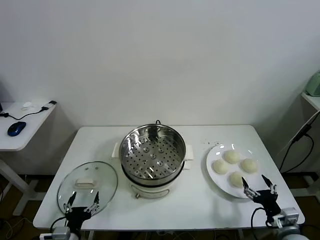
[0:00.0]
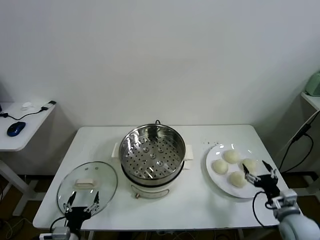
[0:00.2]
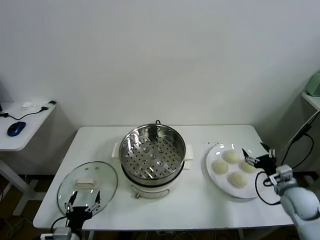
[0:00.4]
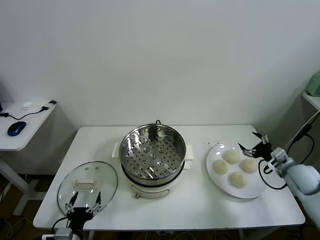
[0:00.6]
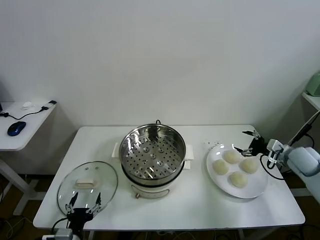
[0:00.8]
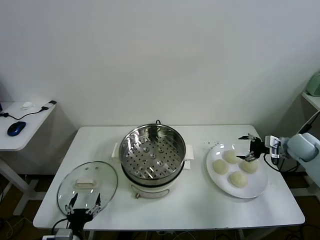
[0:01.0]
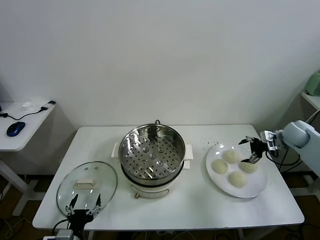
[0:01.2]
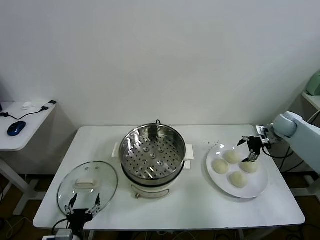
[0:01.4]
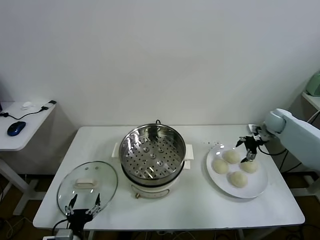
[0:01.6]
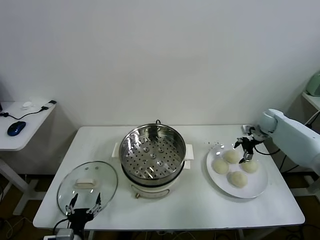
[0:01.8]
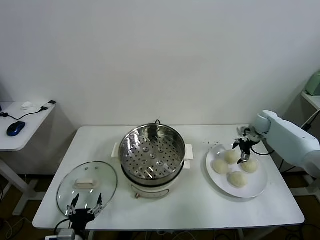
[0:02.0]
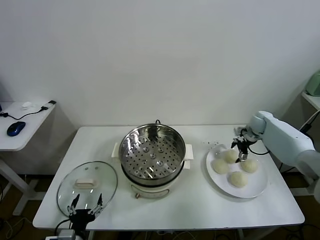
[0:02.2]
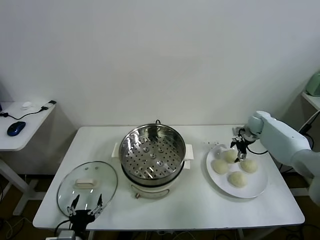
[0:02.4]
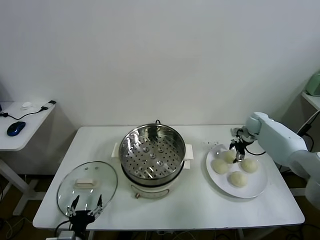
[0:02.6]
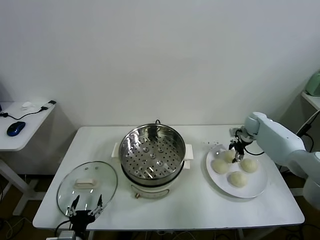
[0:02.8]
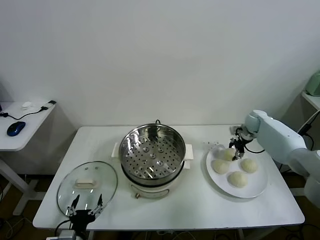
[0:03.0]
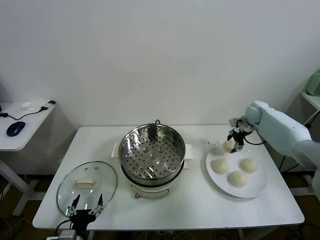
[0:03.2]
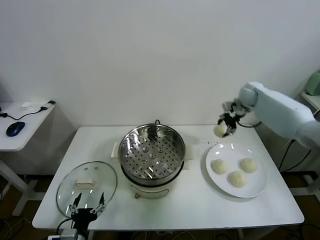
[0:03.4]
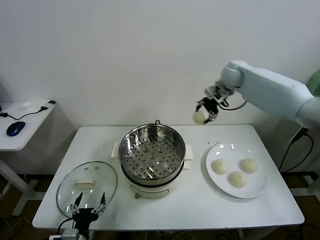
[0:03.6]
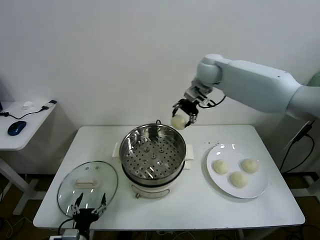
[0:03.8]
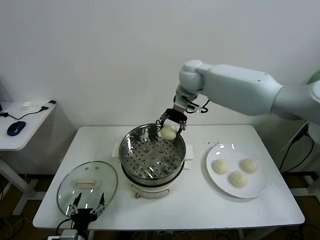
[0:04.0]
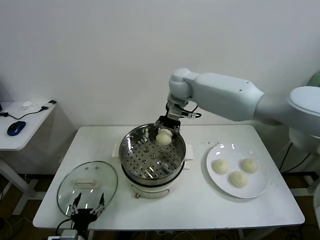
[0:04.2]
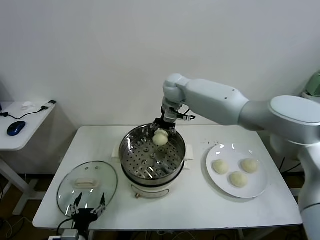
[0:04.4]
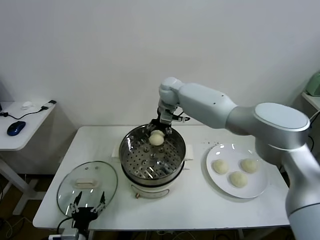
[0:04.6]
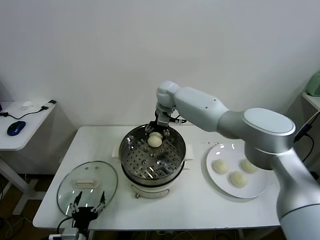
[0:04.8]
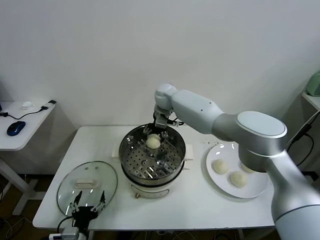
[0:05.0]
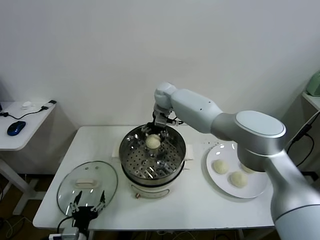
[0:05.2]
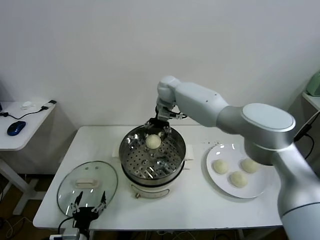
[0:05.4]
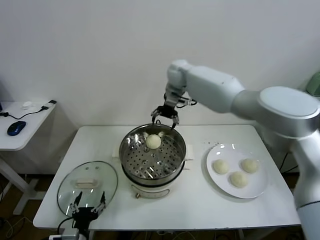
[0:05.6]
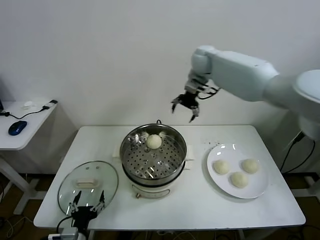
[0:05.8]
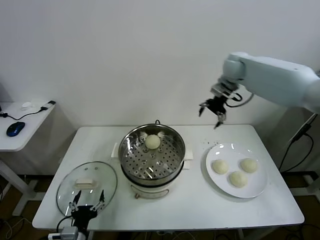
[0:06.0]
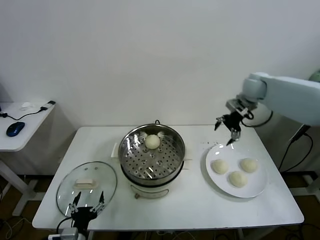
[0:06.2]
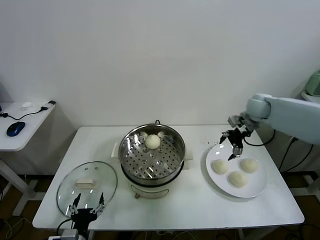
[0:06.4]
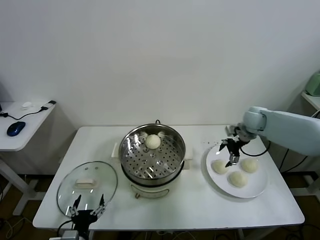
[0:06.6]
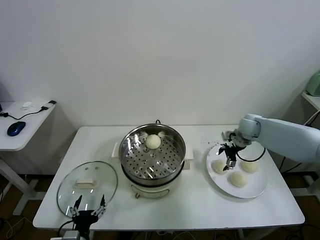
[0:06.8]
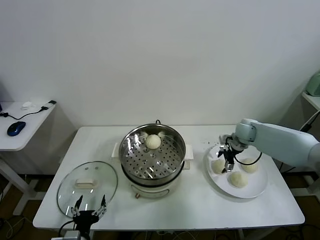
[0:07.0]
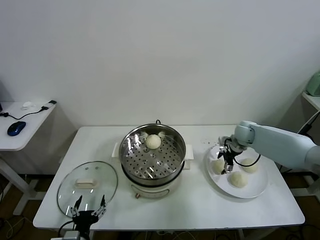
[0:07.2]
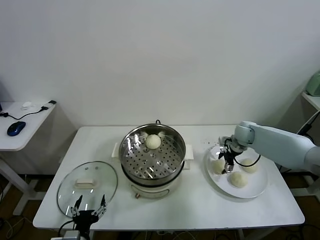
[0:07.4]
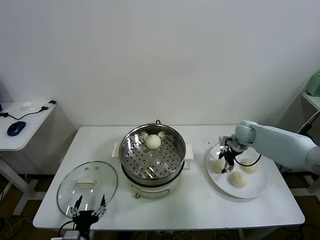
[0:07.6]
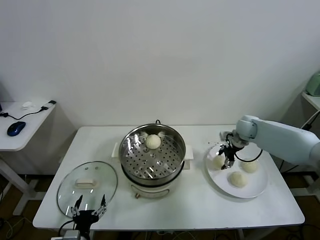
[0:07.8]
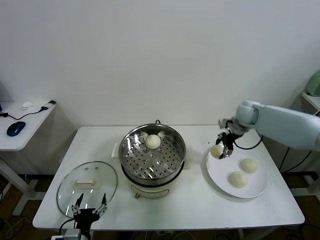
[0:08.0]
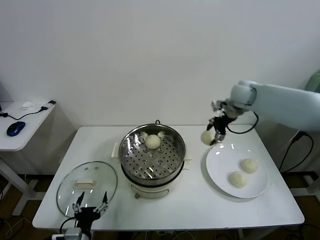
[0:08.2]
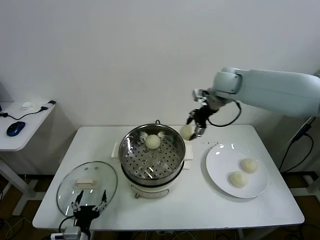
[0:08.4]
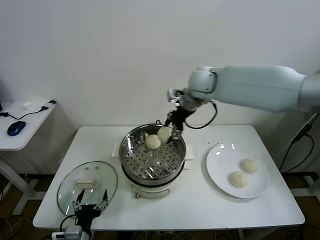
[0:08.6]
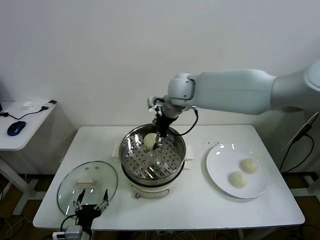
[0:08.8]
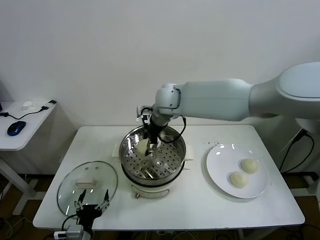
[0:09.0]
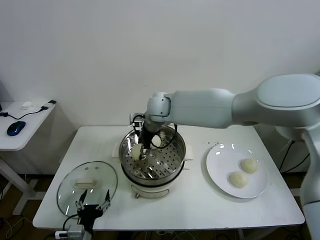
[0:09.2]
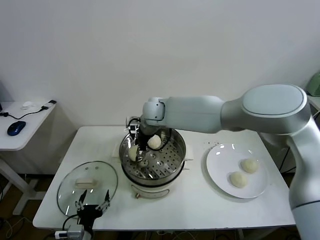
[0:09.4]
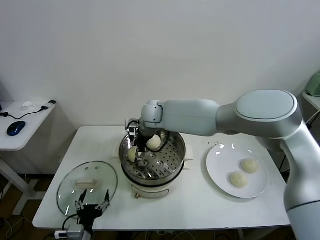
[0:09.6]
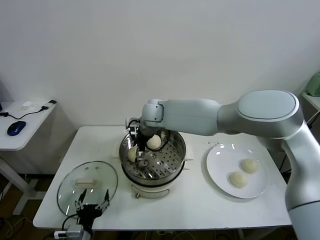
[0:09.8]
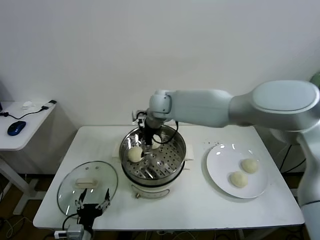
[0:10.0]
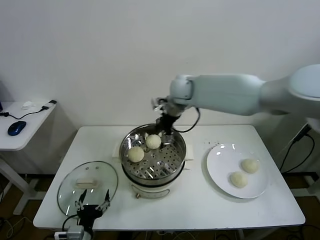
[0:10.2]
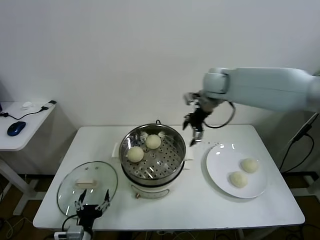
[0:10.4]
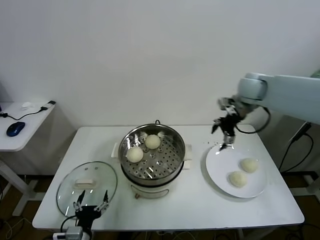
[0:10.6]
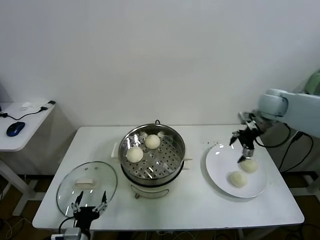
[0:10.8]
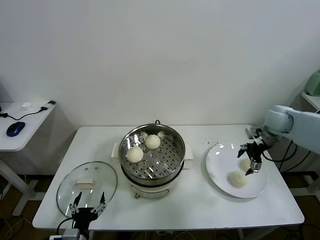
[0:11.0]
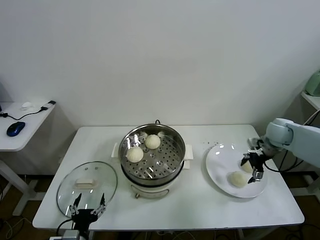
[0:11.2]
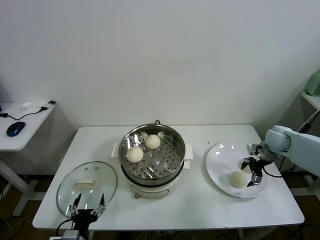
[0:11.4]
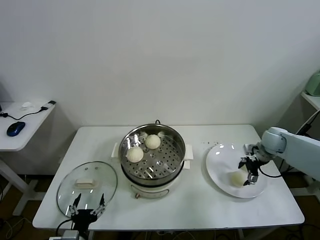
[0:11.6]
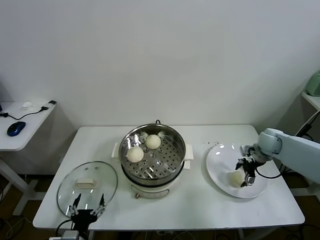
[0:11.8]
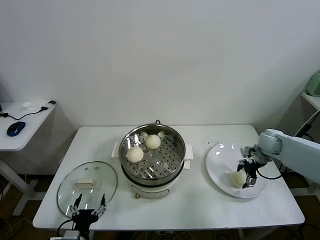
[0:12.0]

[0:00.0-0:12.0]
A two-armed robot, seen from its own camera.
Task of the whole recording: take steamed baozi put them in steamer.
Step, 0.0 to 2.6 s: Grasp the baozi in the plate with right gripper.
Step, 3.0 to 5.2 s: Place the baozi on the steamer with right gripper.
Step, 5.4 to 7.6 s: Grasp the baozi in the plate with right gripper.
Step, 7.8 to 9.8 s: Place the baozi on the steamer with right gripper.
1.6 to 3.0 s: The right gripper changes place by about 5 cm, and closes its fingers.
3.0 to 4.4 s: The right gripper goes some 35 cm to the left.
4.4 to 6.0 s: The right gripper moves to the right, roughly 25 cm, and opens up.
6.0 to 7.6 s: The right gripper is displaced downward by about 20 cm, and closes.
7.6 to 9.0 s: The right gripper travels to the left and upward by approximately 35 cm.
9.0 to 10.4 s: The right gripper goes some 20 cm to the right, and opens up.
10.4 to 12.0 s: The right gripper shifts some 30 cm downward and to the right.

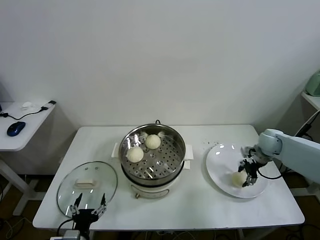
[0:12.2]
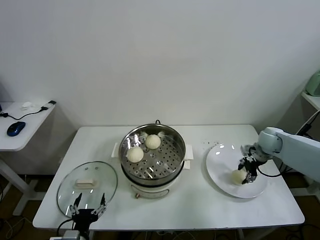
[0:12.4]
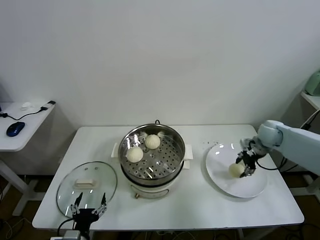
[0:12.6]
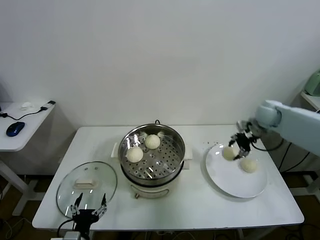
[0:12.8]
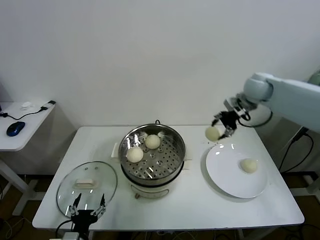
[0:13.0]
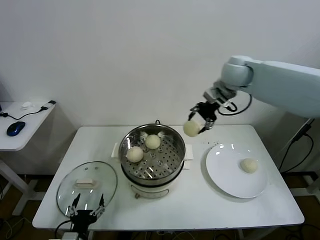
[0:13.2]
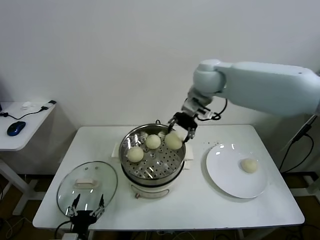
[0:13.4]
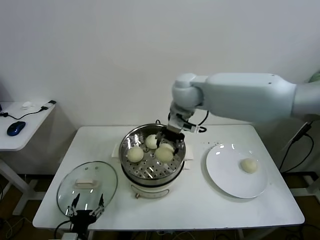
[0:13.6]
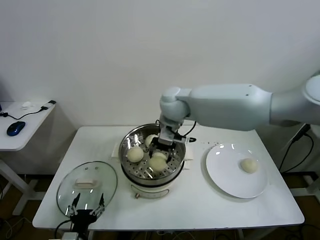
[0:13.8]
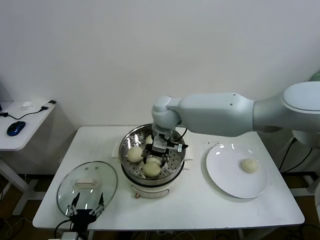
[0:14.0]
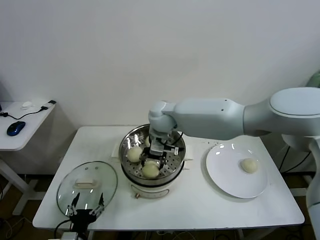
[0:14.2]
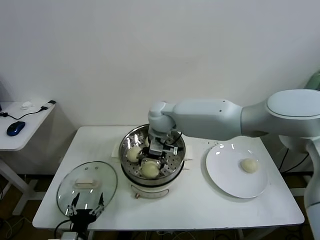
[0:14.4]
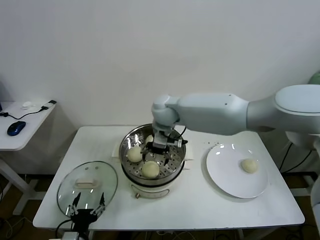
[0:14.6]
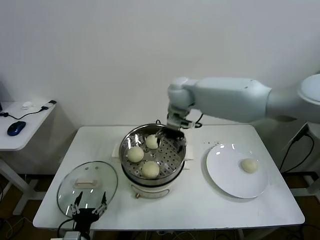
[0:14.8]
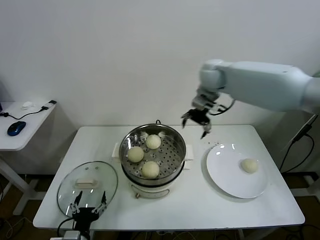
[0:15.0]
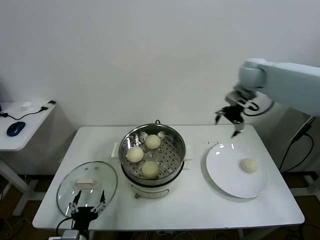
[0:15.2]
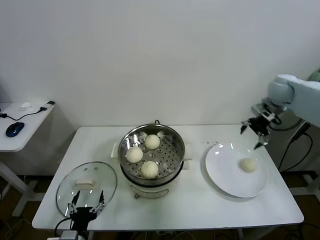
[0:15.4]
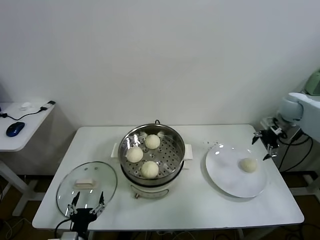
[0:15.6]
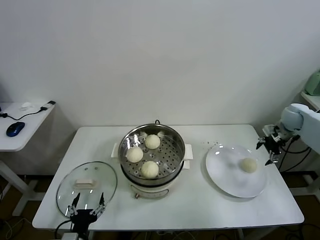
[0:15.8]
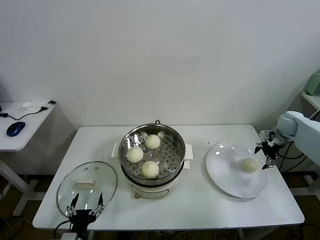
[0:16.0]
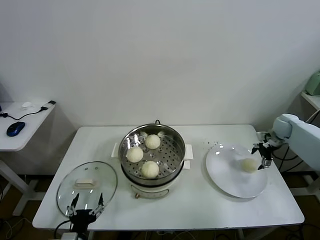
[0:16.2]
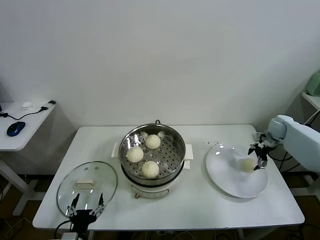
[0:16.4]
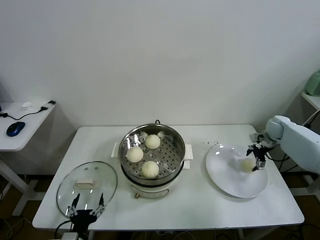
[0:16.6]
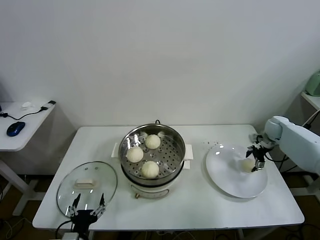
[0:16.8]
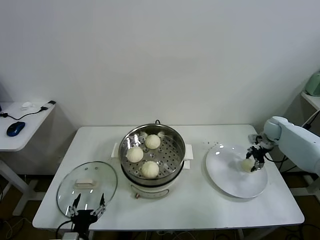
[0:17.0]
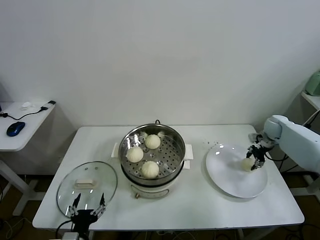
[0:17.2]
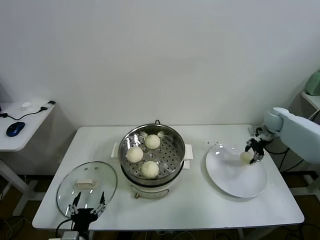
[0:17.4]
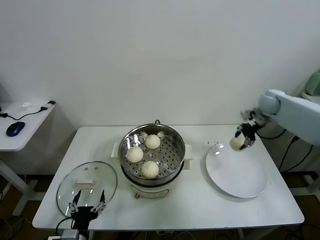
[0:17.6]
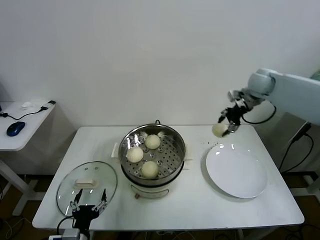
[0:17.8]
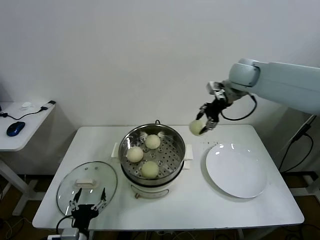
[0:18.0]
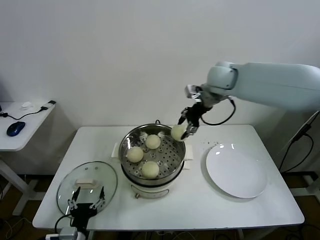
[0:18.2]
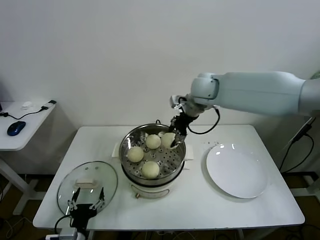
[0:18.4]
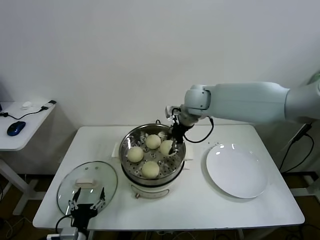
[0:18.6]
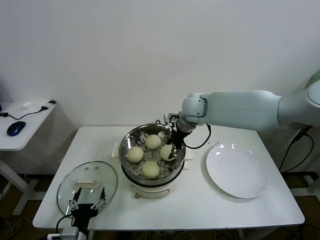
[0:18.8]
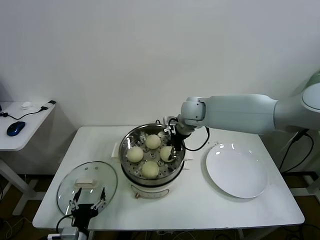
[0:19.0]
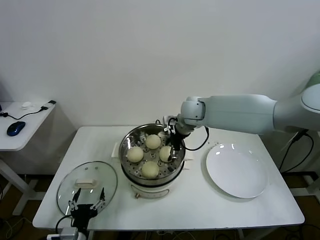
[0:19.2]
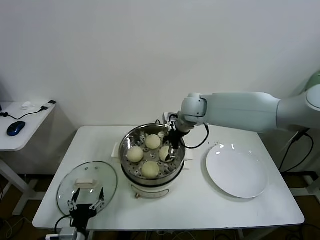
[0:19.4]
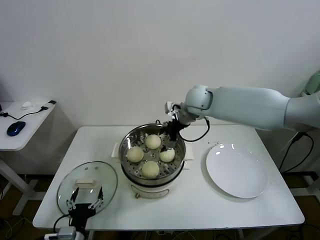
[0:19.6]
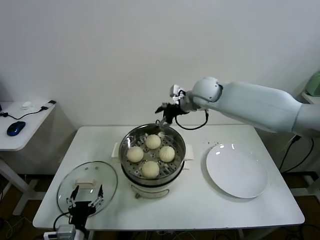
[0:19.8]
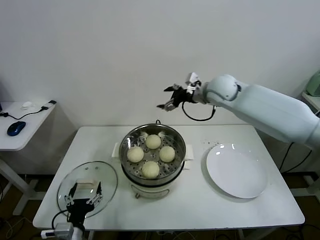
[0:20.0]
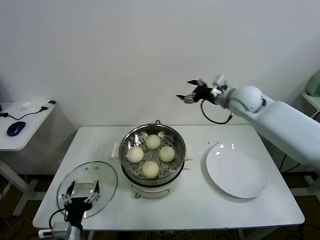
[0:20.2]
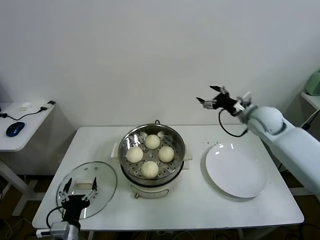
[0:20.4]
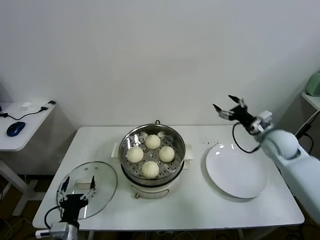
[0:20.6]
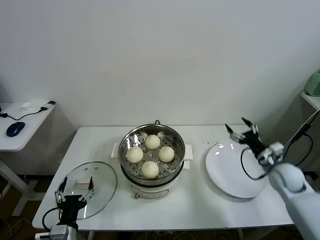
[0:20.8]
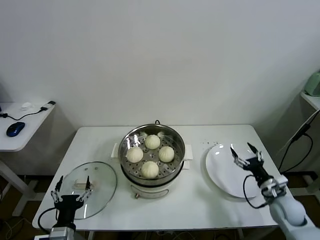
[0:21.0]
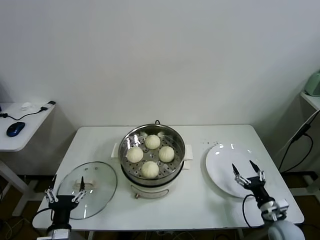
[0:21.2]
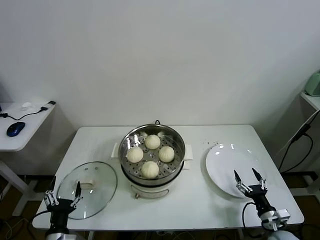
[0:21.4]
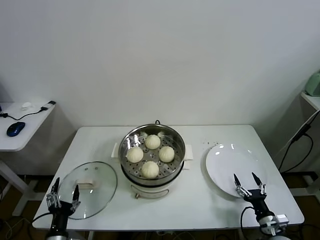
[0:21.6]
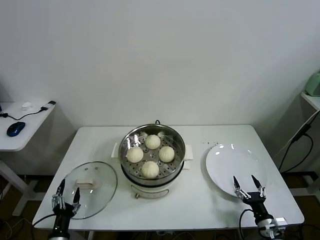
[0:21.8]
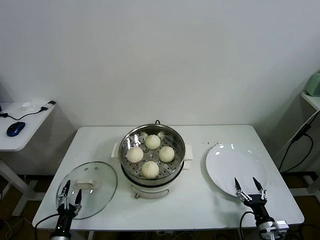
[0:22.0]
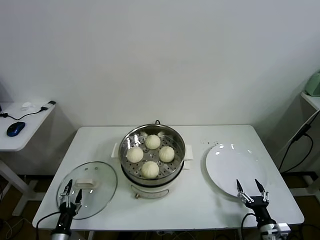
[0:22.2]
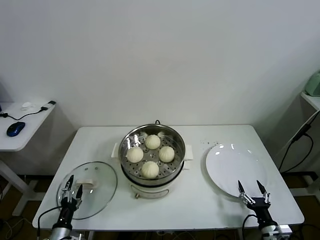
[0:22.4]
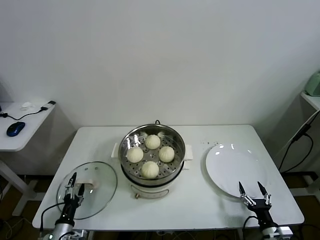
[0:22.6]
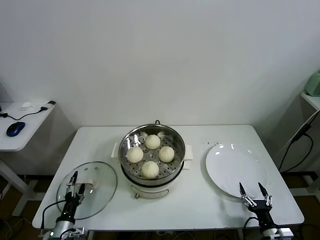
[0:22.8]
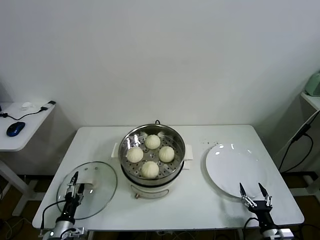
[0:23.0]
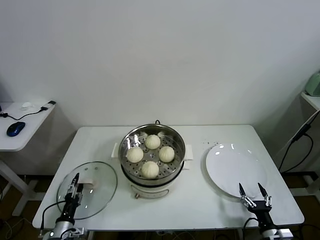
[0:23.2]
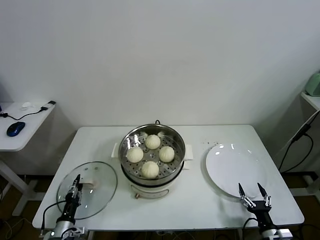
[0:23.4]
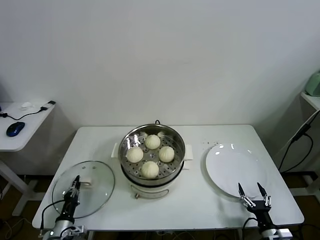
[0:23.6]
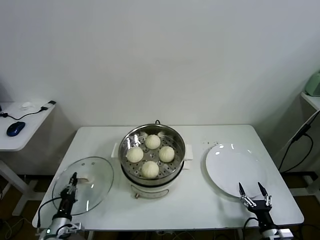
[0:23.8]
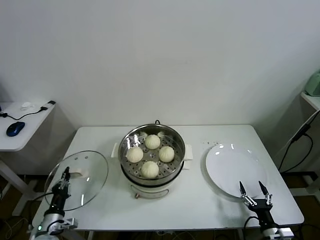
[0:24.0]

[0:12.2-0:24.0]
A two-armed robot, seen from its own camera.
Task of the whole recording: take steamed baozi put them in steamer.
Step, 12.6 to 14.4 s: Place the baozi on the steamer with right gripper.
Step, 14.6 to 17.0 s: Grasp the baozi in the plate with right gripper.
Step, 17.2 to 19.2 s: Place the baozi on the steamer with right gripper.
Step, 19.4 to 23.8 s: Grasp the pot lid with left gripper.
12.2 to 13.6 s: The right gripper heads to the left and upward, covering about 40 cm.
13.6 to 15.2 s: The right gripper moves to the right, roughly 25 cm, and opens its fingers.
15.2 to 16.6 s: The right gripper goes roughly 30 cm downward and to the right.
16.6 to 18.2 s: The right gripper moves to the left and upward, roughly 40 cm, and closes.
18.2 to 19.6 s: The right gripper goes about 10 cm downward and to the left, and opens its fingers.
19.6 to 21.0 s: The right gripper travels to the right, downward and backward by approximately 50 cm.
21.0 to 22.6 s: The right gripper moves backward and downward, approximately 15 cm; the left gripper travels downward and to the left by approximately 15 cm.
22.6 to 24.0 s: The left gripper closes up.
